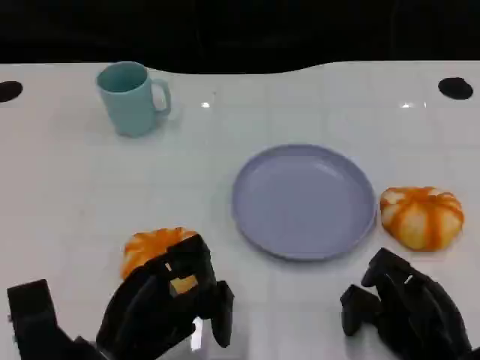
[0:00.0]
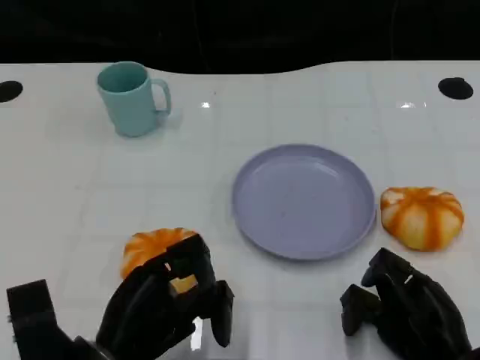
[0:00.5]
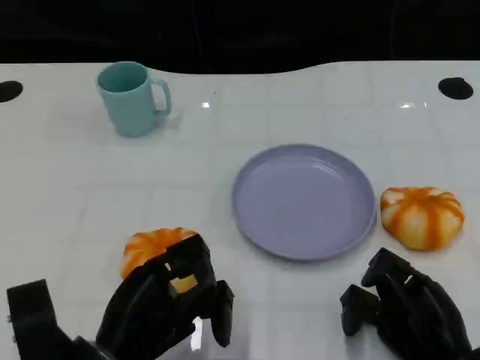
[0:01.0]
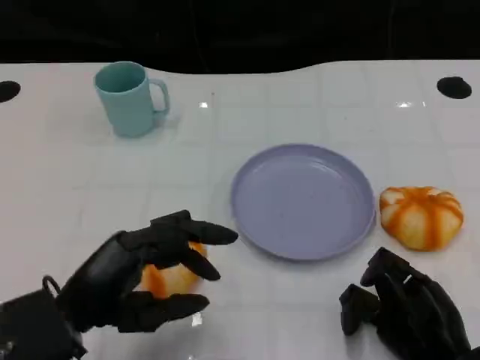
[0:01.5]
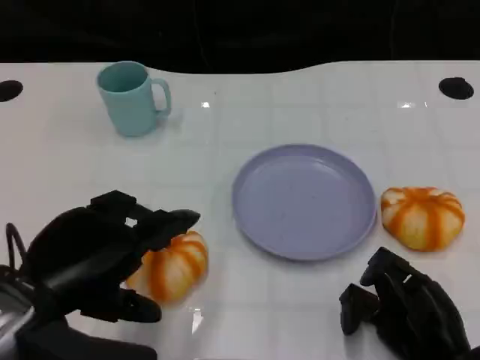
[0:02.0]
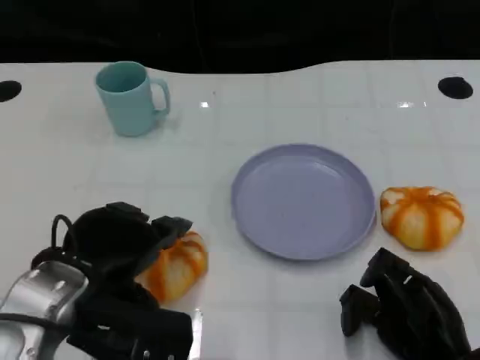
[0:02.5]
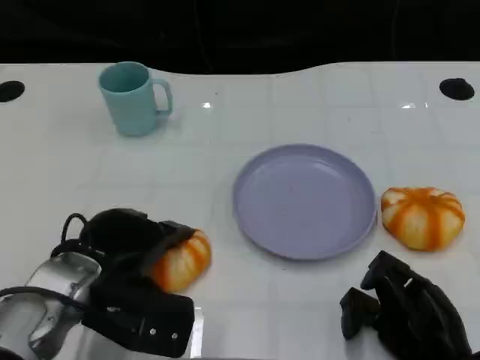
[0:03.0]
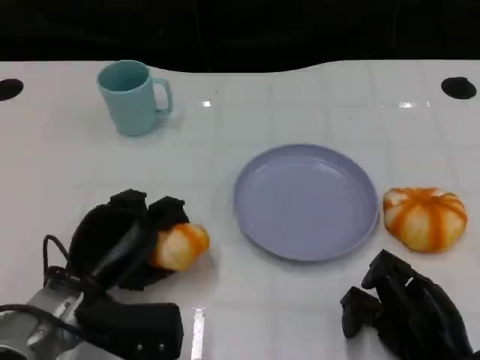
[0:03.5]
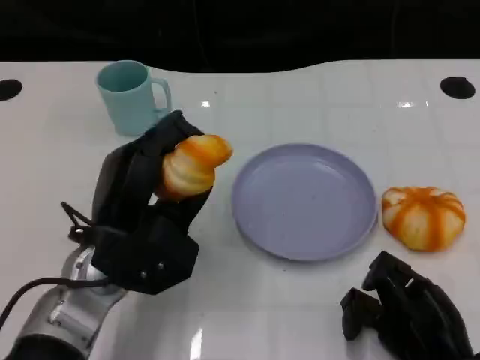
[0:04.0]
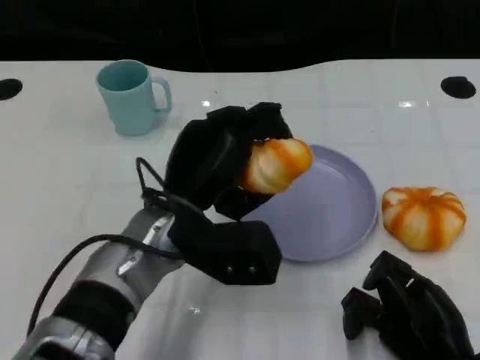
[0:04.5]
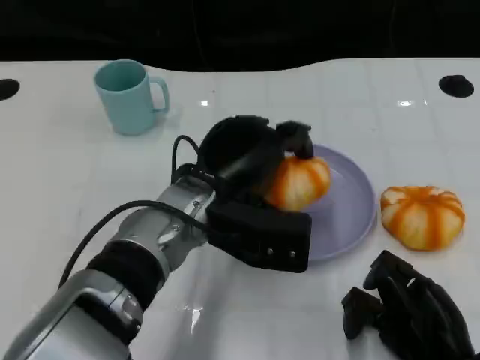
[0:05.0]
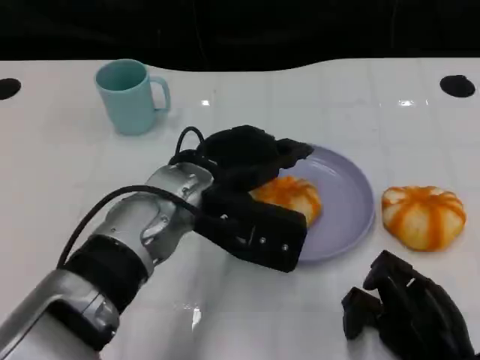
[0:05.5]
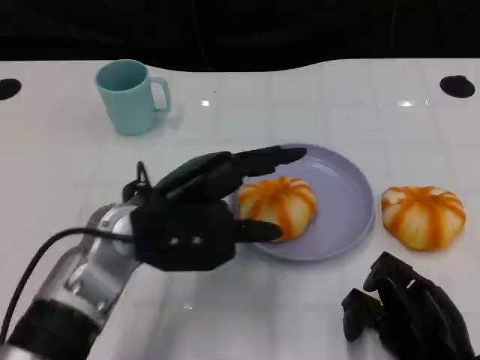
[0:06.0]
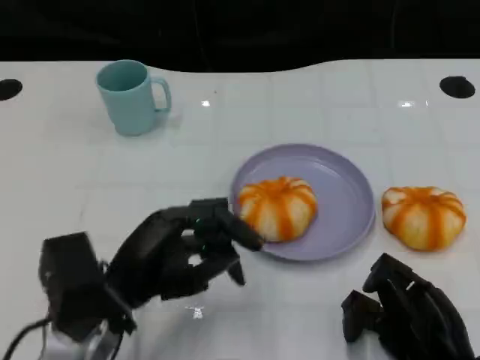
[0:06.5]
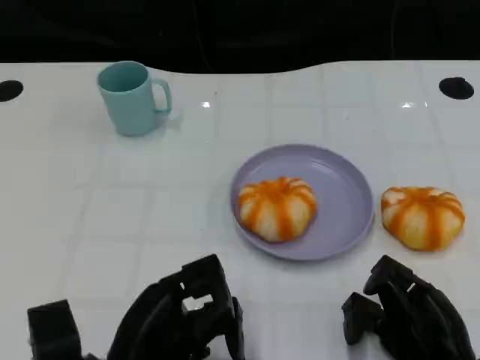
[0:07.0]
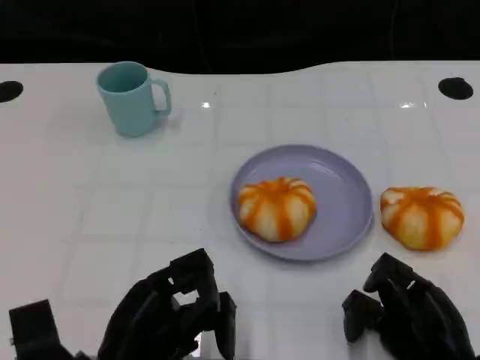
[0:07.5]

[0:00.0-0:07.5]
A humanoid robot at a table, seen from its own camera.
Task of the whole recording: Grasp the bread from the table and place it into the plate.
0:00.0 to 0:02.0: The left hand heads upward, covering about 10 cm.
0:02.0 to 0:04.0: The left hand heads forward and to the right, covering about 10 cm.
0:04.0 to 0:05.5: The left hand is displaced to the right by roughly 5 cm.
0:05.5 to 0:07.5: The left hand is displaced backward, downward and to the left by approximately 20 cm.

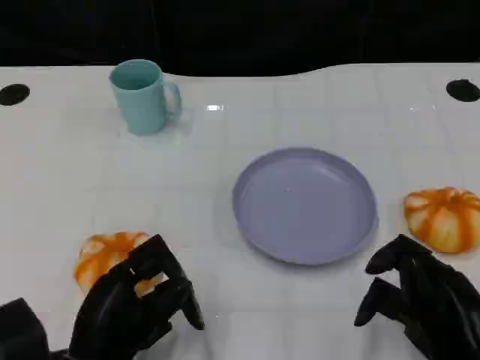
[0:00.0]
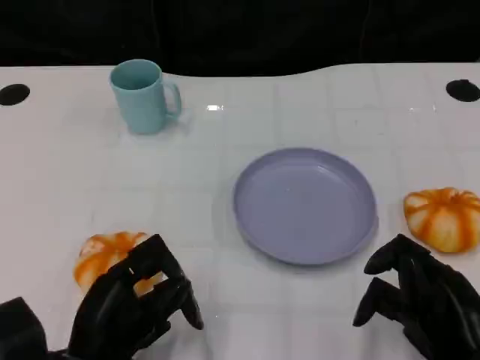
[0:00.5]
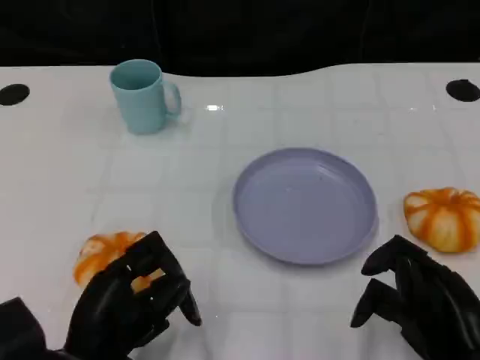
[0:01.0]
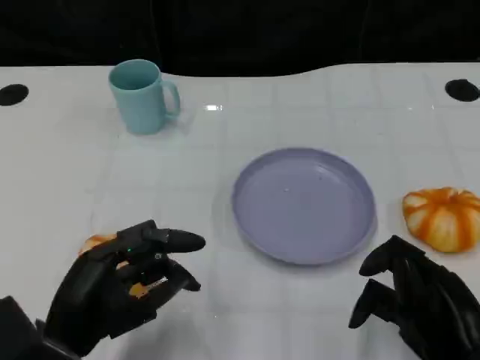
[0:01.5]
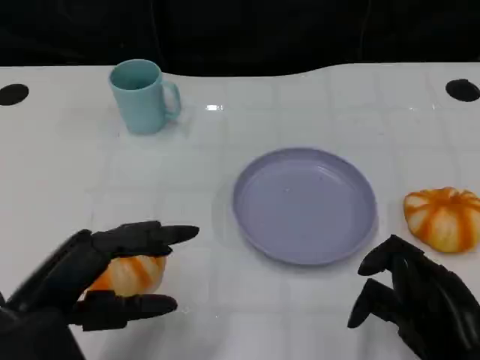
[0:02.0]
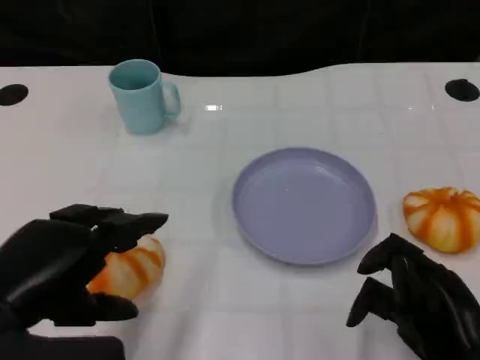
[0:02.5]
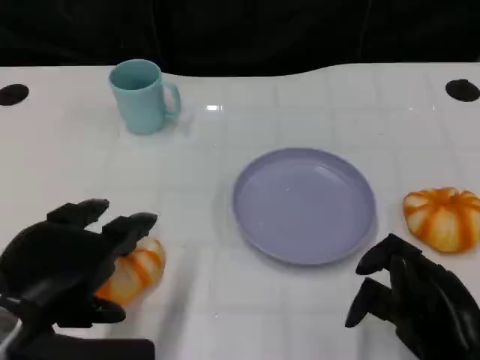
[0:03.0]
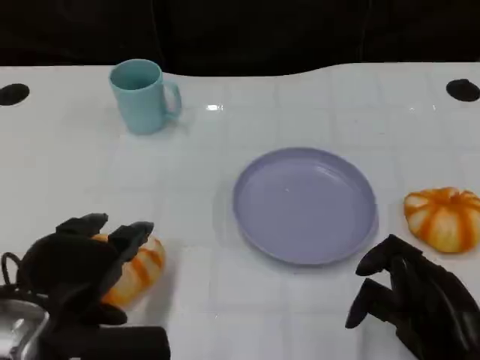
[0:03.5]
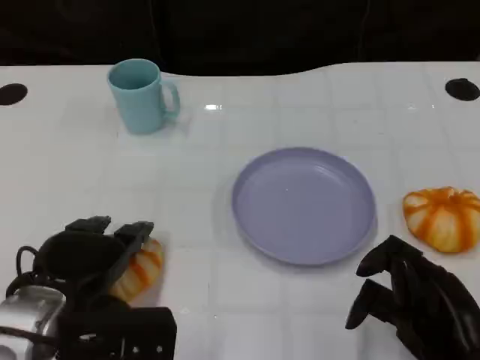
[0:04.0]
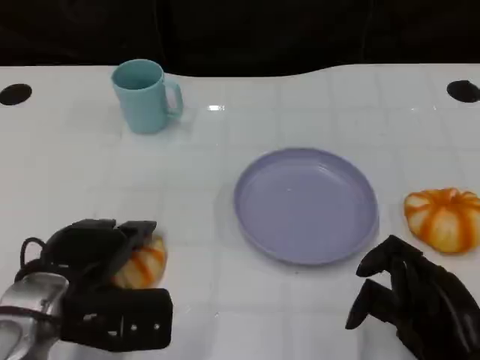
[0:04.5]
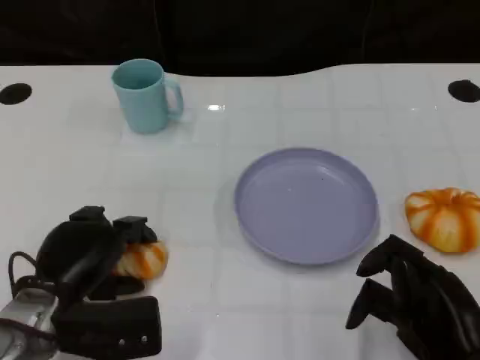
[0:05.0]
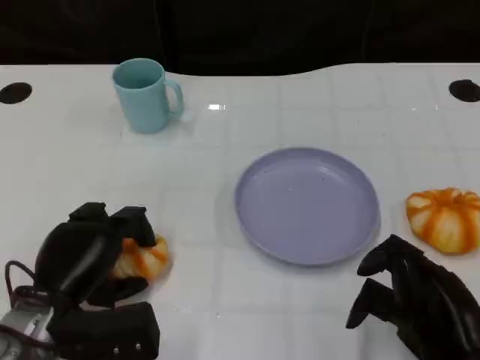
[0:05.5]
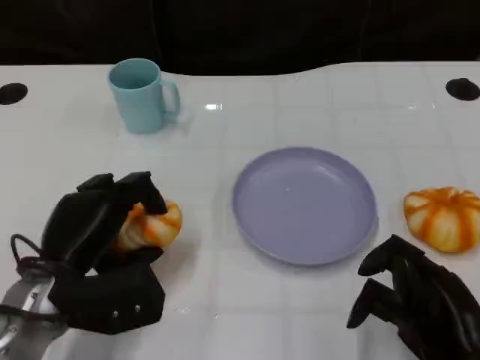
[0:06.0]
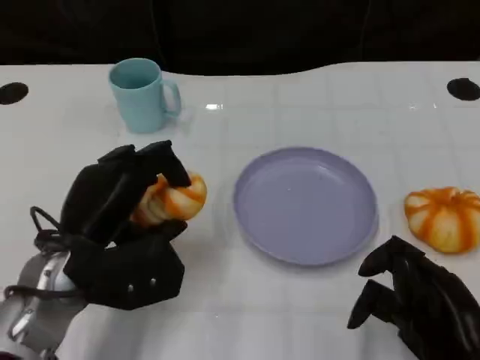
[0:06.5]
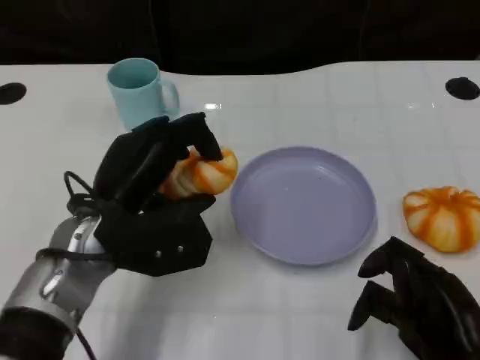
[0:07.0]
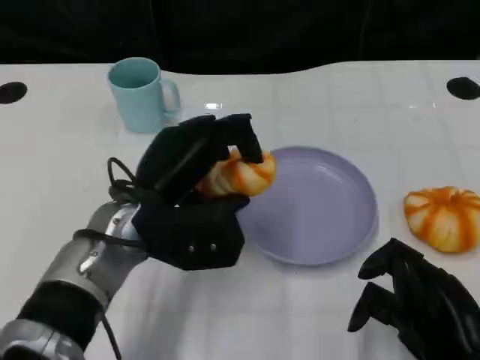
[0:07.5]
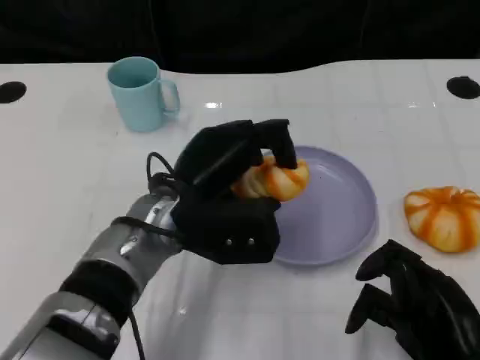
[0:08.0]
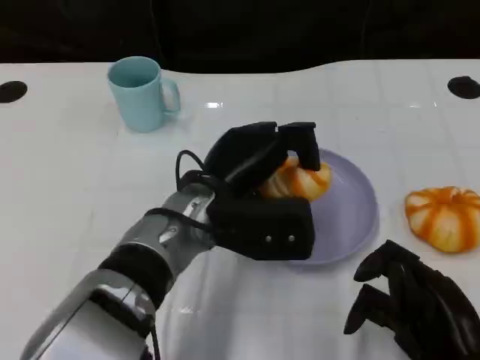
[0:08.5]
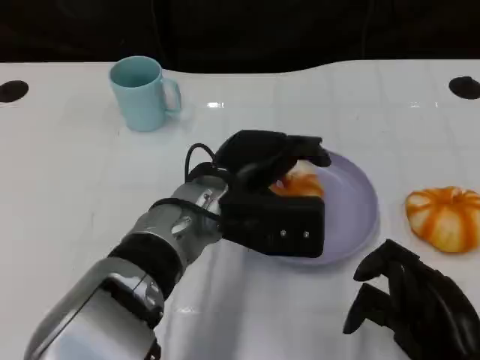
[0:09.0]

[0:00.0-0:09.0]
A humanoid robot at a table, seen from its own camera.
Task of the whole recording: Grasp the bread from the table and place it into the plate.
0:00.0 to 0:02.0: The left hand is displaced upward by about 10 cm.
0:02.0 to 0:04.5: The left hand heads forward and downward, covering approximately 10 cm.
0:04.5 to 0:07.0: The left hand shifts some 5 cm to the right.
0:07.0 to 0:09.0: The left hand heads to the right, covering roughly 10 cm.

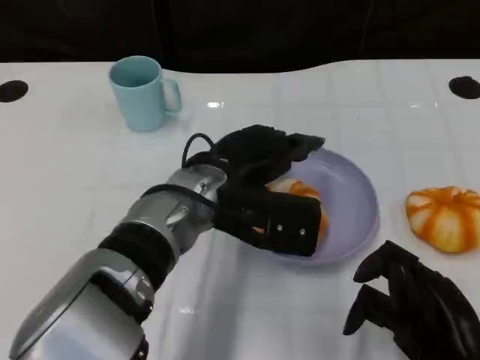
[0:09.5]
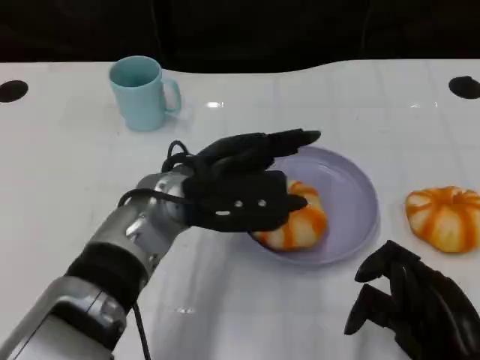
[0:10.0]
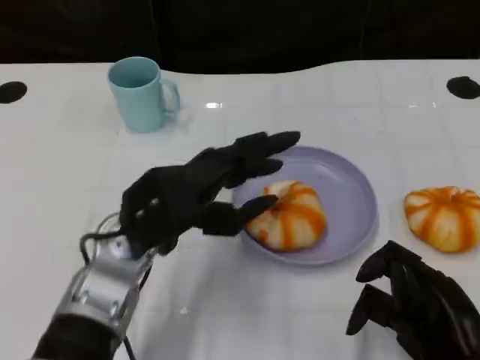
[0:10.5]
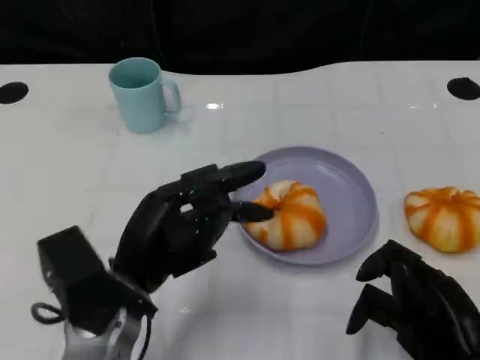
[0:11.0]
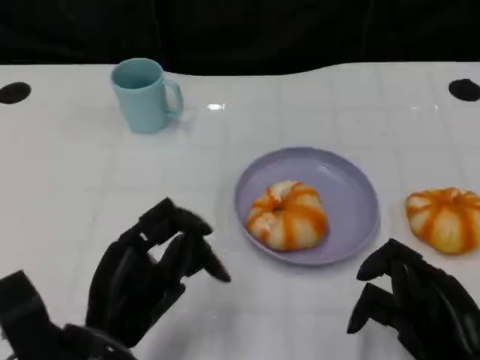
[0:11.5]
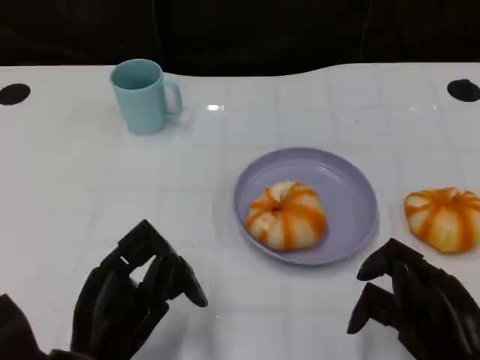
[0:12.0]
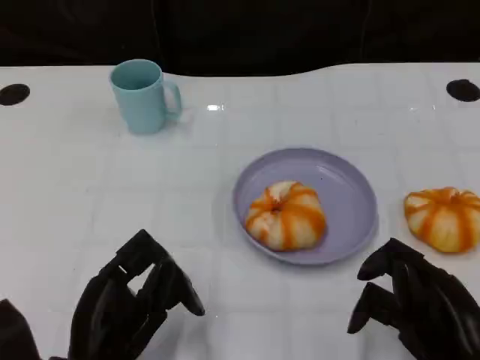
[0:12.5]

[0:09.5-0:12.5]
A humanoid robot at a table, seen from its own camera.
Task of the whole recording: Grasp the bread from the table and place it into the plate.
0:09.5 to 0:11.0: The left hand travels to the left and backward by about 15 cm.
0:11.0 to 0:12.5: The left hand travels backward by roughly 5 cm.

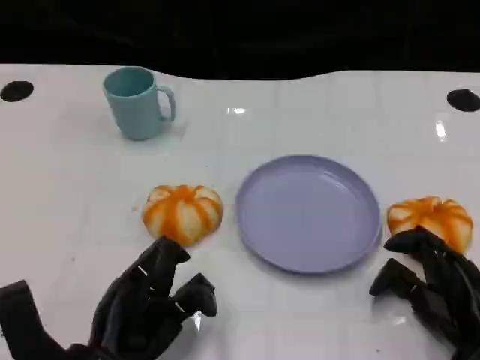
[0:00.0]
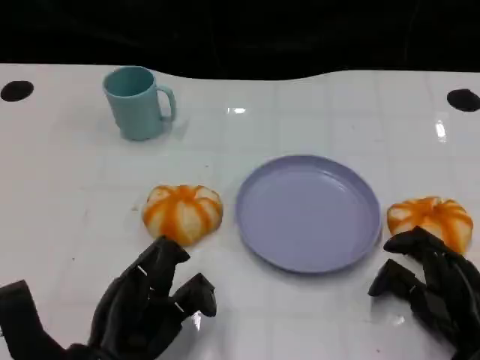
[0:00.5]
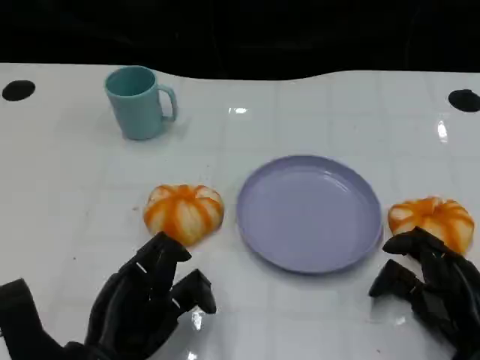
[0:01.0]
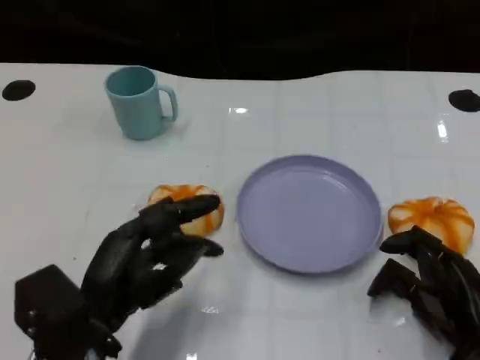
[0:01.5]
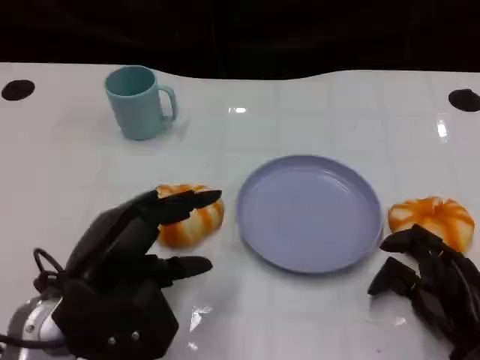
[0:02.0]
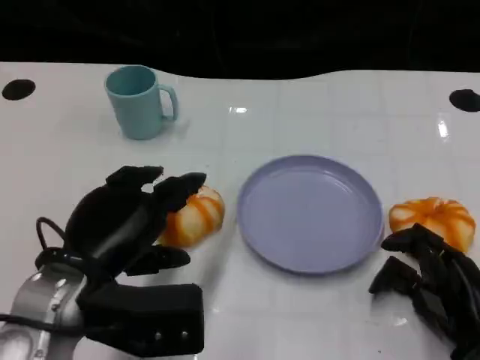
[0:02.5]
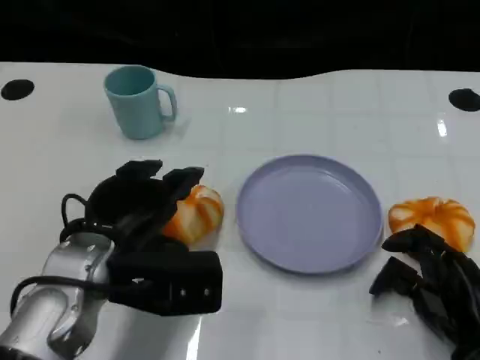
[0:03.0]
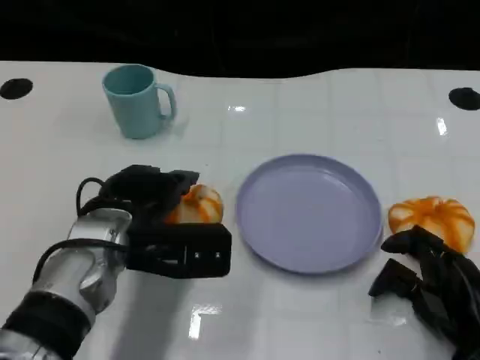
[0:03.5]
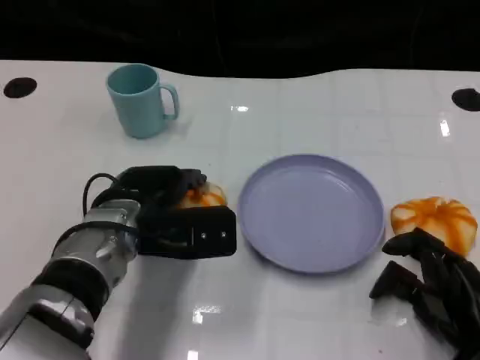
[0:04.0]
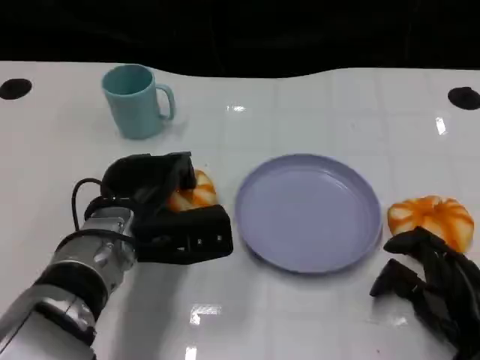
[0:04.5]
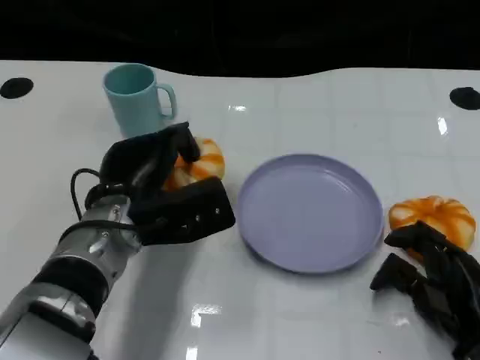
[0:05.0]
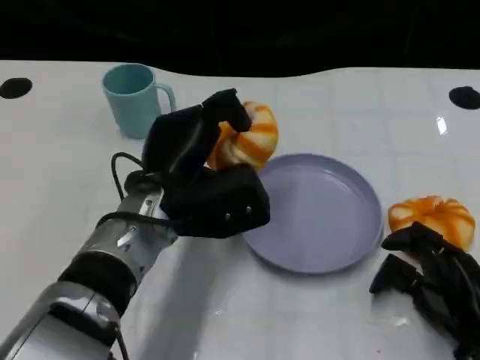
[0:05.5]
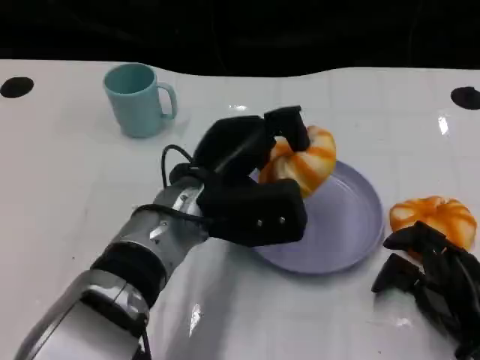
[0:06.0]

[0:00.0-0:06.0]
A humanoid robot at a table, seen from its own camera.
Task of the whole recording: Grasp the bread from the table and place it into the plate.
0:00.0 to 0:02.0: The left hand moves upward, about 5 cm.
0:02.0 to 0:04.0: The left hand is displaced forward and to the right by approximately 10 cm.
0:04.0 to 0:06.0: The left hand shifts some 10 cm to the right.
